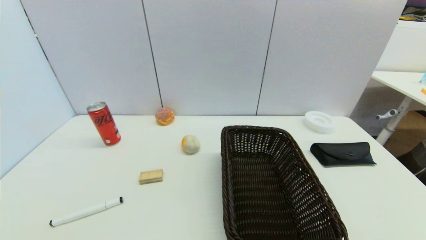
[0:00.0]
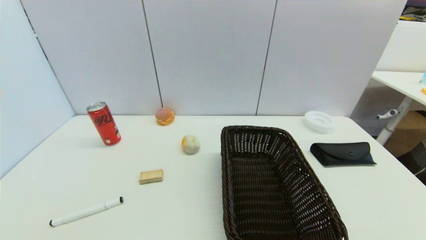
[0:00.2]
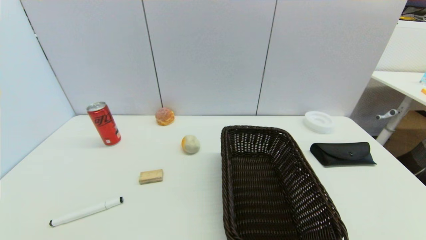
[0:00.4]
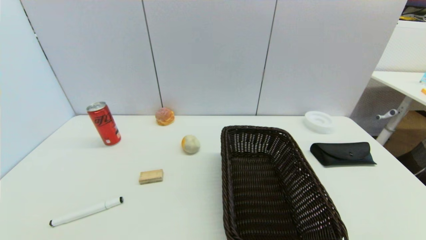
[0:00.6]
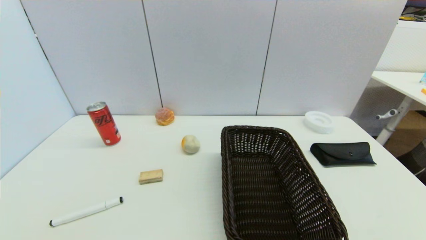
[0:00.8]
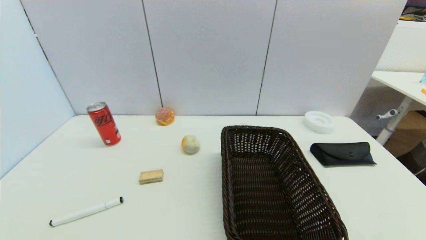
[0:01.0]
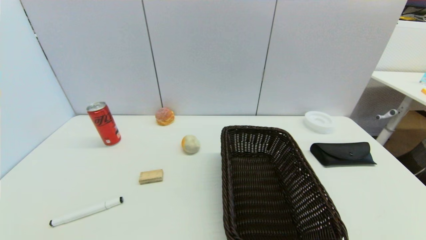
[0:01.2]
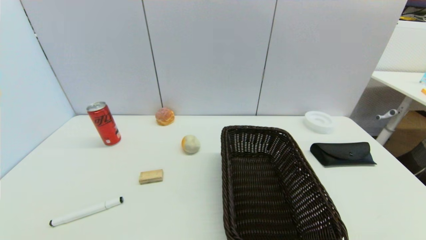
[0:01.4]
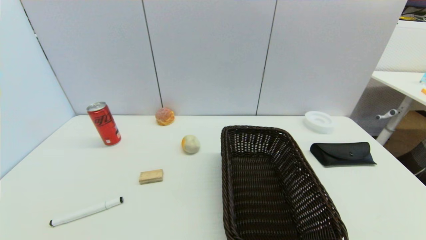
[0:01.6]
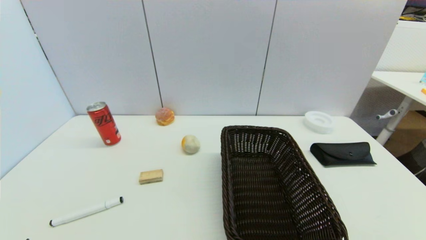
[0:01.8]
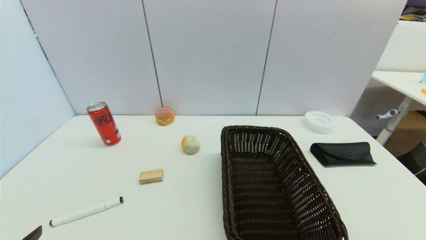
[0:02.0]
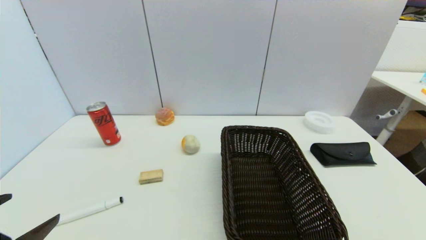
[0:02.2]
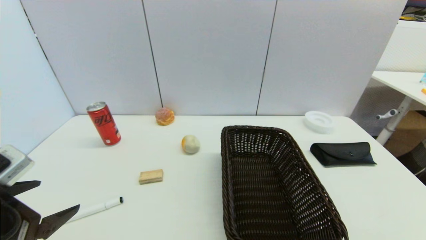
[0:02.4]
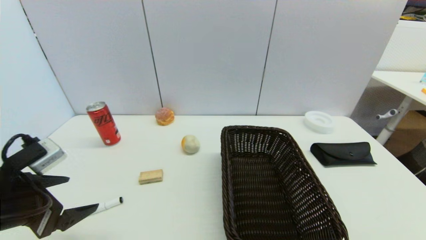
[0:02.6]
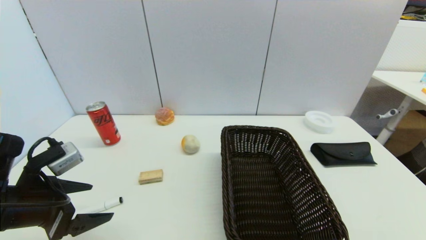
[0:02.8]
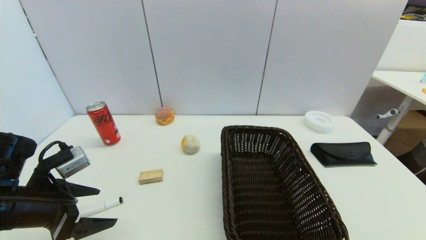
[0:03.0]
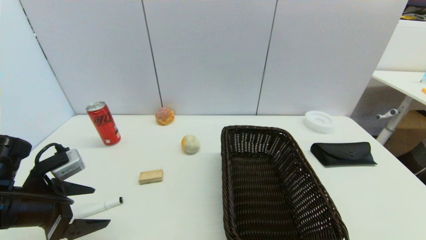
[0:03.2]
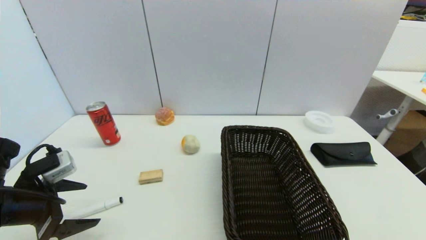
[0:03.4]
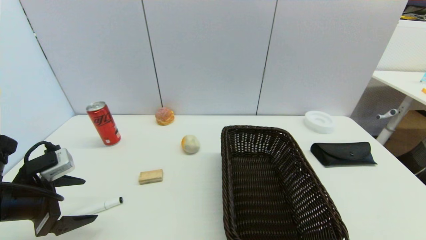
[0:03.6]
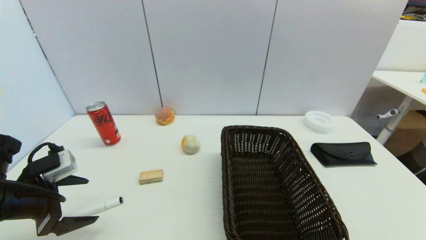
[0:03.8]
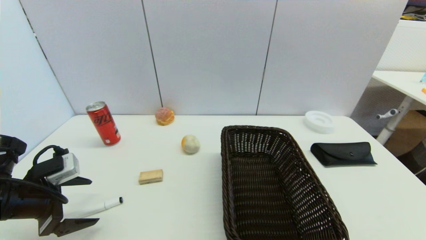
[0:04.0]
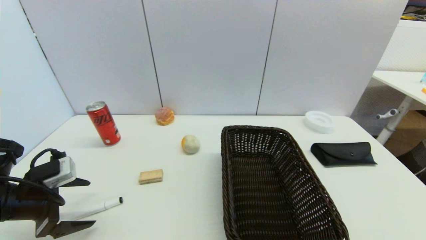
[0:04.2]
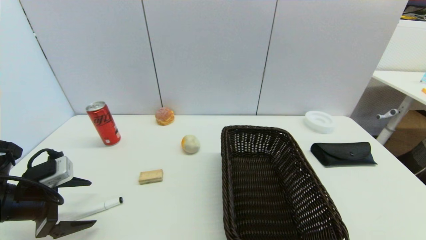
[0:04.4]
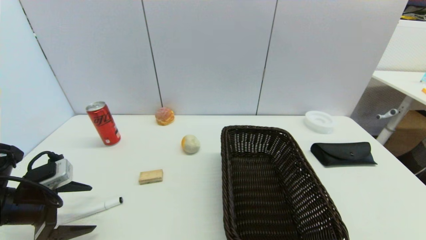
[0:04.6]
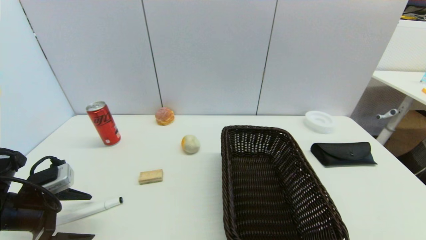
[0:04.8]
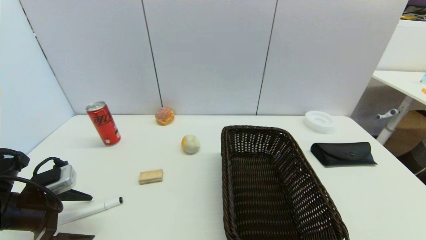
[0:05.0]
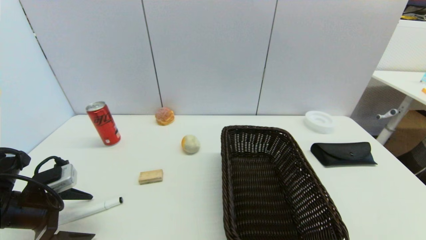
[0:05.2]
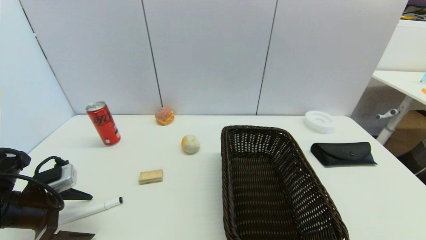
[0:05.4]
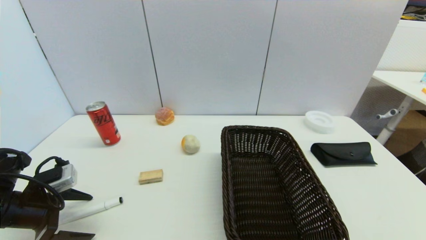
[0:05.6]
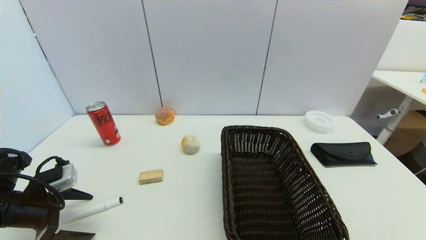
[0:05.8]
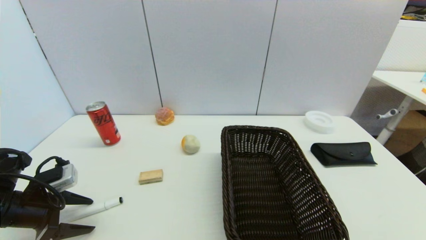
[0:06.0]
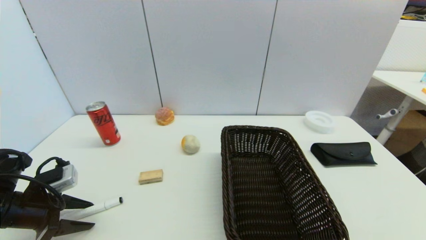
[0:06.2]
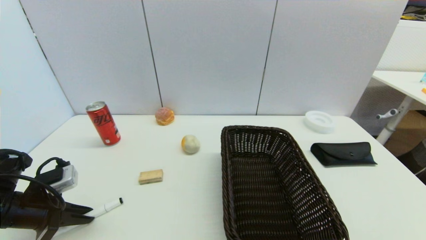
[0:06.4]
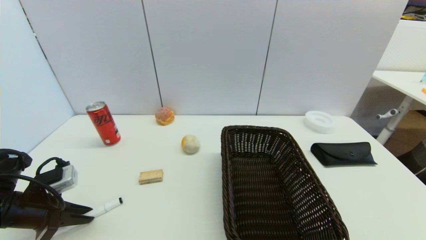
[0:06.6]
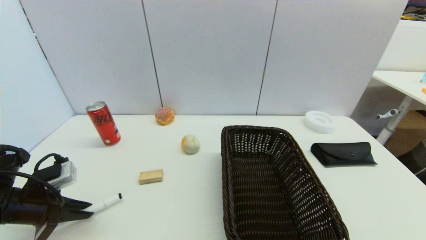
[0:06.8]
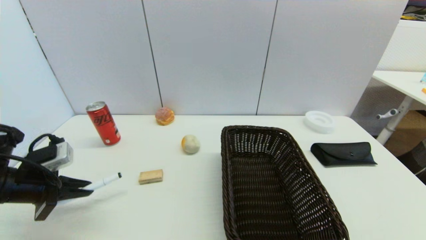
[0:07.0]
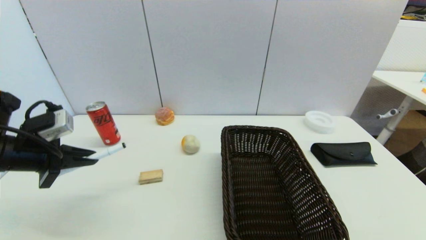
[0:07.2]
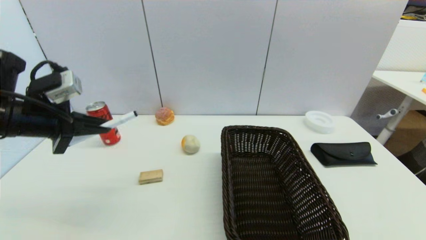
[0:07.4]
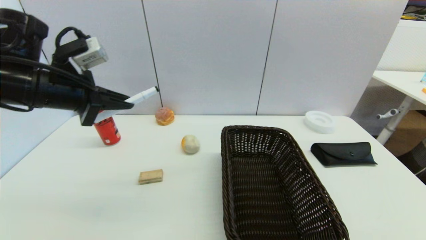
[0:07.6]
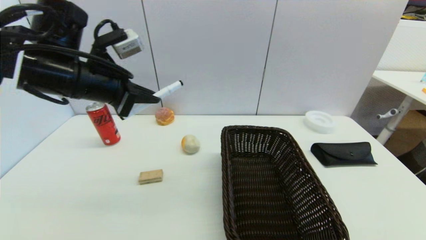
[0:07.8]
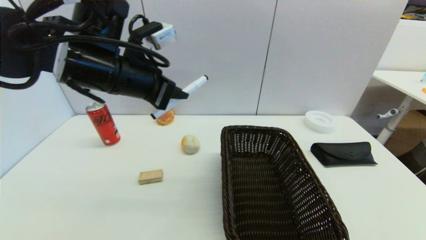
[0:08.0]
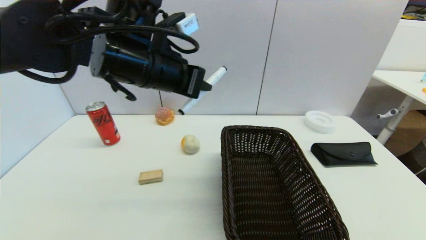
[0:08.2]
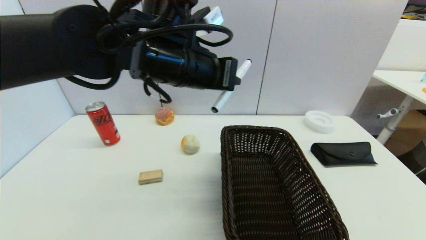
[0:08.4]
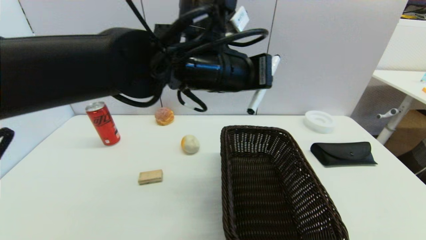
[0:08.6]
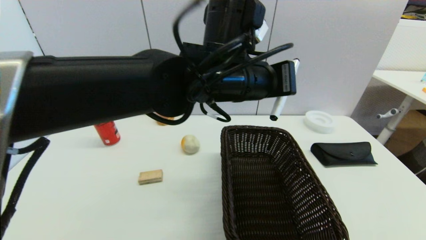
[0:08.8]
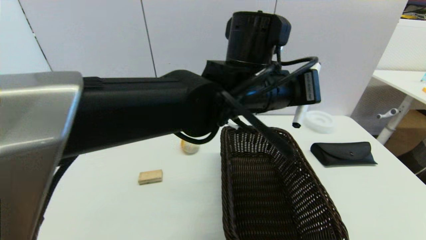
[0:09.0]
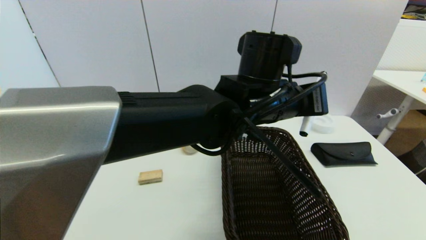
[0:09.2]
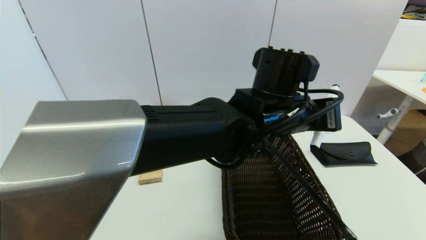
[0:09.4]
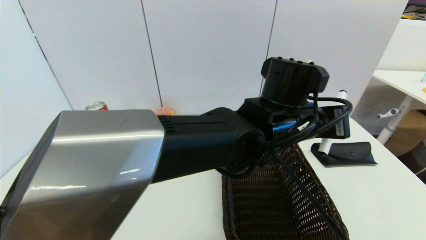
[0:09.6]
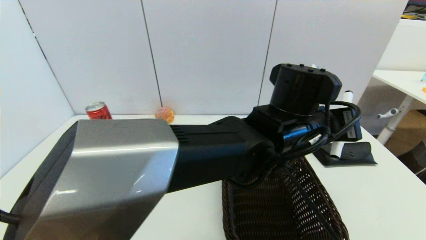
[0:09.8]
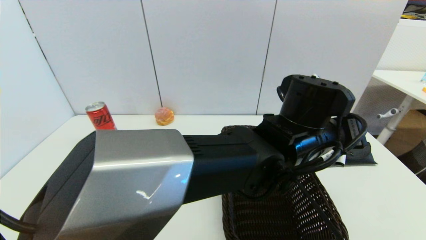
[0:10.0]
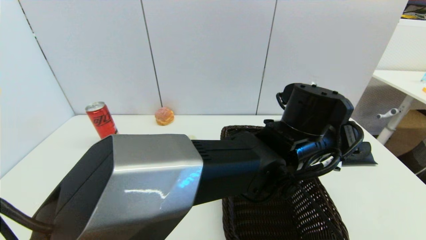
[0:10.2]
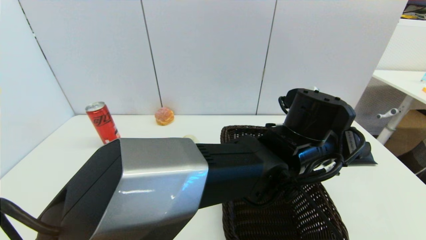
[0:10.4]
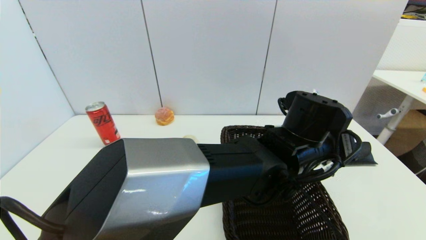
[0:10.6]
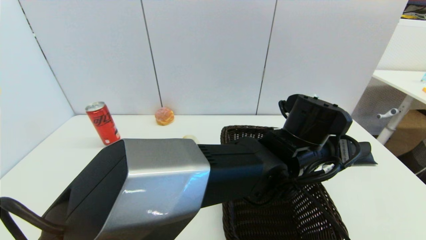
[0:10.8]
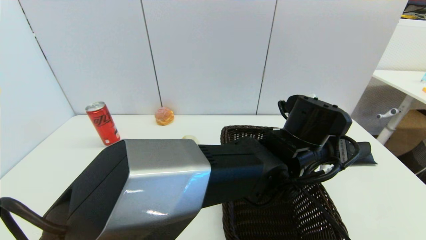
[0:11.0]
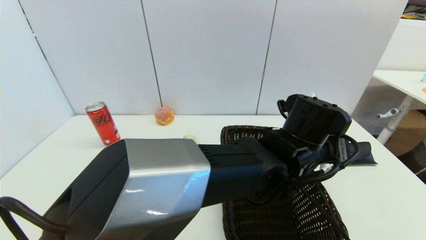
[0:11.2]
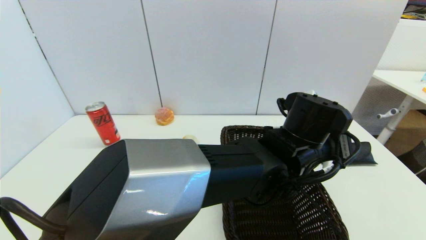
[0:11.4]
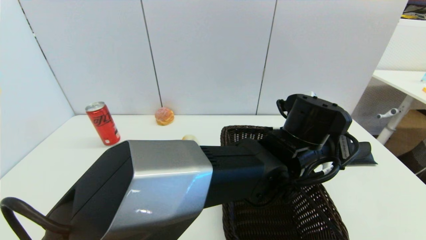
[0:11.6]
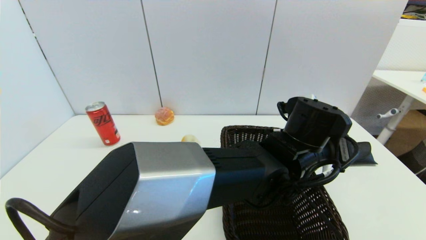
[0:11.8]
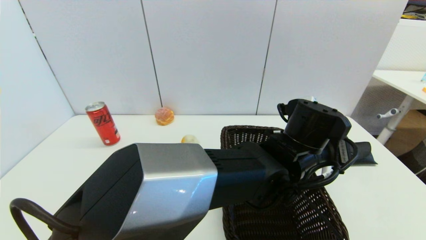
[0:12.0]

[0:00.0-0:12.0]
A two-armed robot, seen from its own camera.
Task of the whole recording: put the black marker in the designated position.
Step, 0:02.0 to 0:06.6: Grasp the Marker pen with left gripper.
0:01.6 to 0:03.0: The left gripper heads forward, covering some 20 cm.
0:03.0 to 0:04.4: The left gripper heads to the left, covering roughly 5 cm.
0:04.4 to 0:06.0: There are only small adjustments of the grippers.
0:06.0 to 0:07.6: The left gripper shifts approximately 20 cm upward, to the right and forward, and closes up.
0:07.6 to 0:09.0: The left gripper goes approximately 30 cm to the right.
0:09.0 to 0:10.4: The left gripper travels downward and to the right by about 10 cm.
0:10.4 to 0:12.0: The grippers make only small movements.

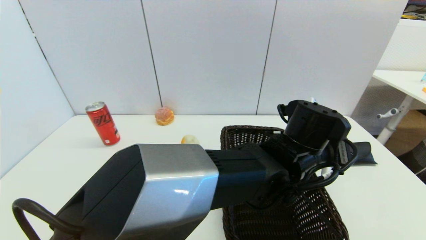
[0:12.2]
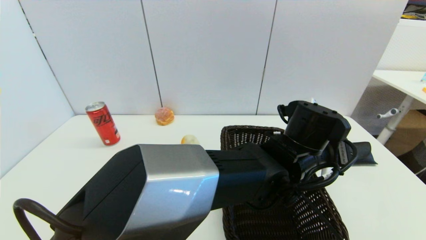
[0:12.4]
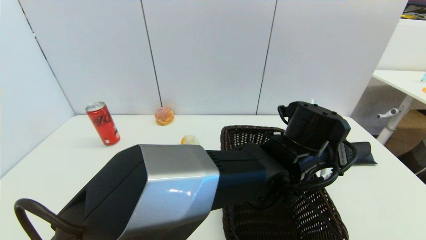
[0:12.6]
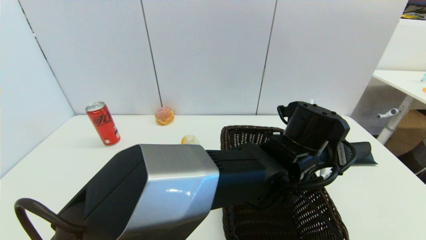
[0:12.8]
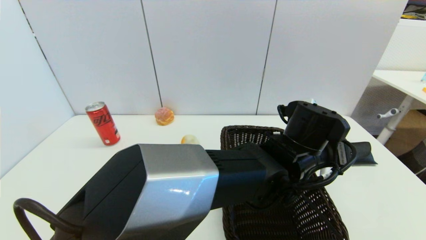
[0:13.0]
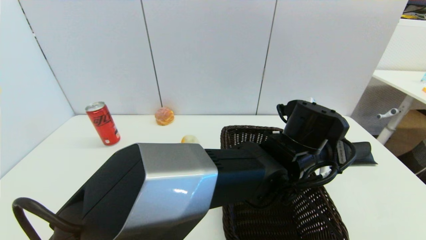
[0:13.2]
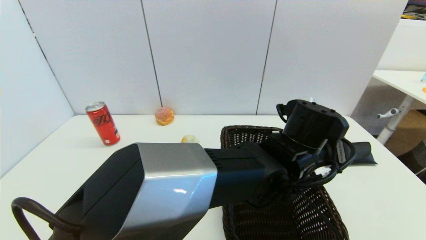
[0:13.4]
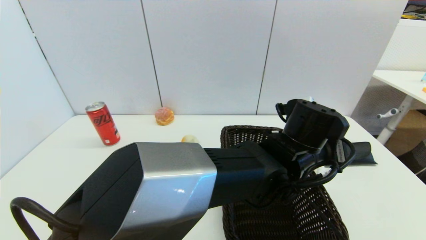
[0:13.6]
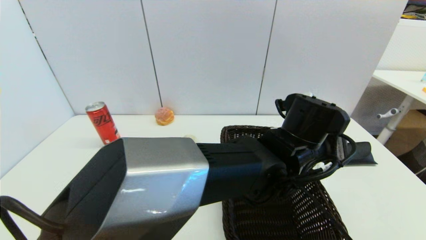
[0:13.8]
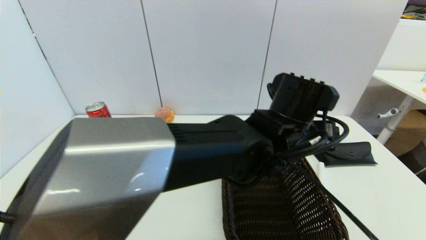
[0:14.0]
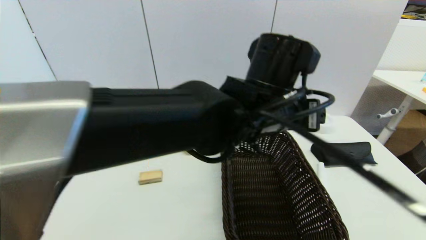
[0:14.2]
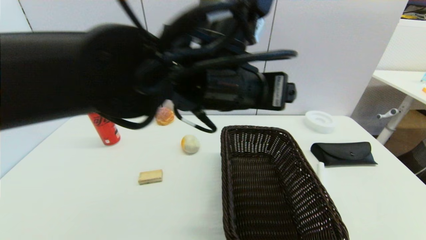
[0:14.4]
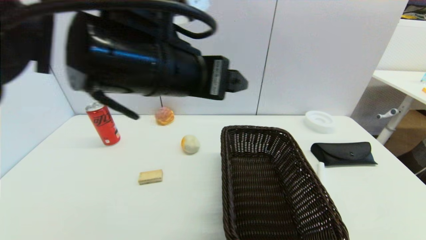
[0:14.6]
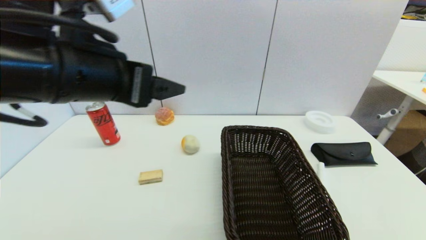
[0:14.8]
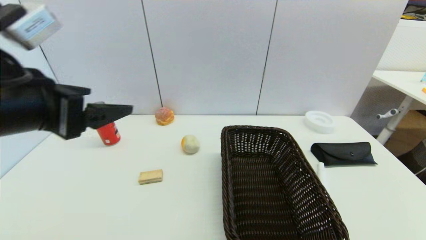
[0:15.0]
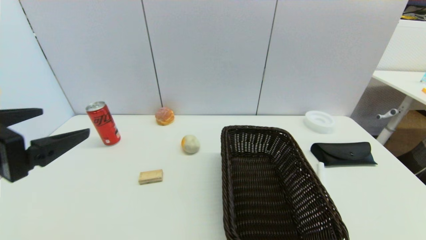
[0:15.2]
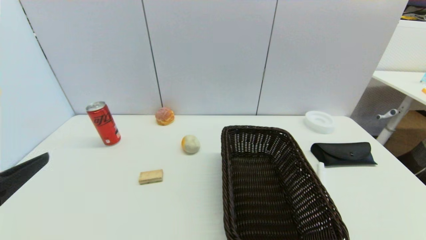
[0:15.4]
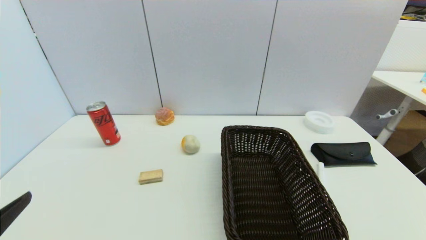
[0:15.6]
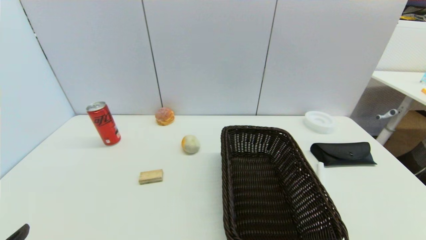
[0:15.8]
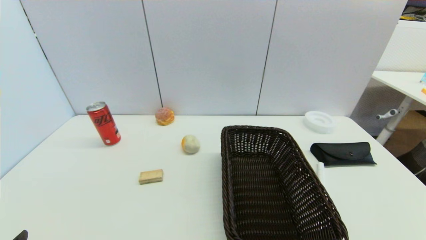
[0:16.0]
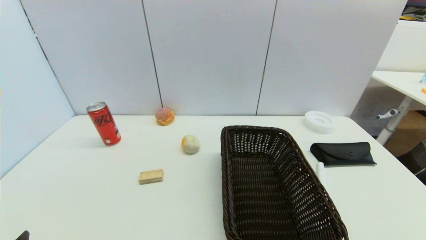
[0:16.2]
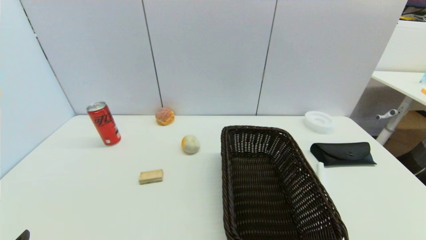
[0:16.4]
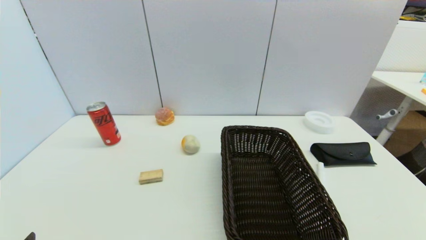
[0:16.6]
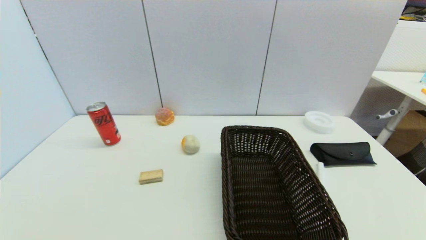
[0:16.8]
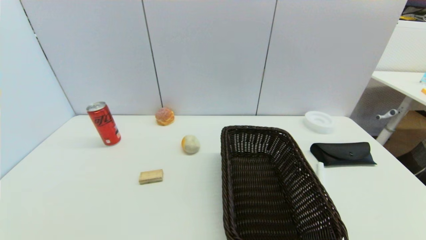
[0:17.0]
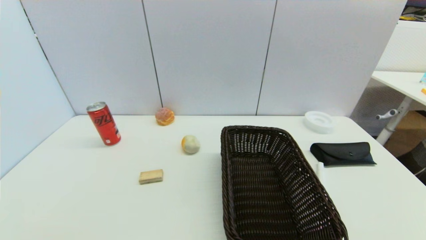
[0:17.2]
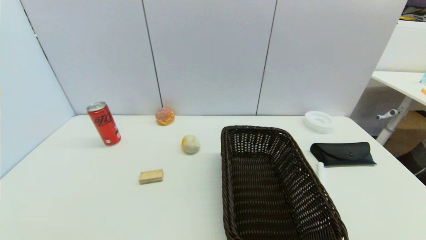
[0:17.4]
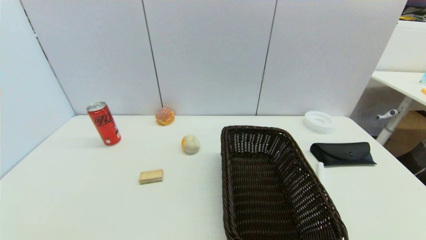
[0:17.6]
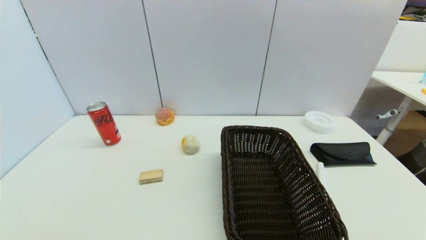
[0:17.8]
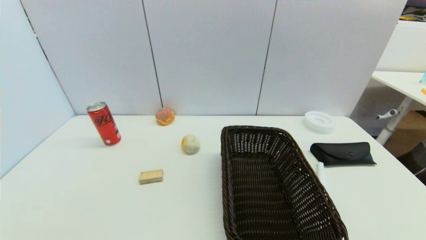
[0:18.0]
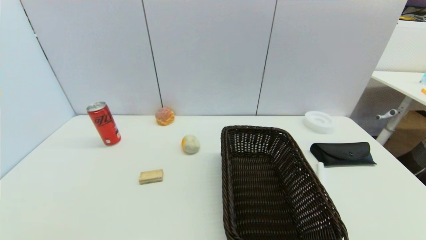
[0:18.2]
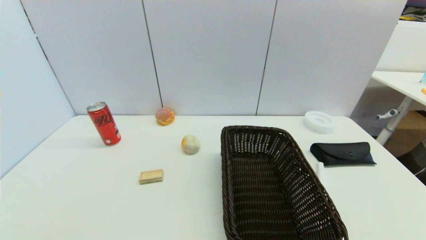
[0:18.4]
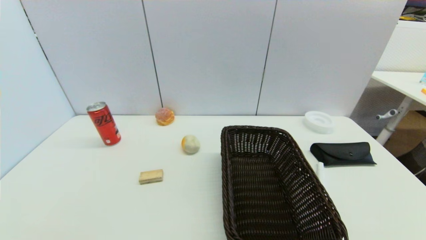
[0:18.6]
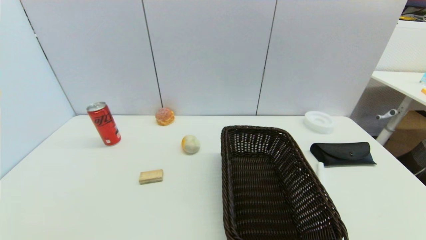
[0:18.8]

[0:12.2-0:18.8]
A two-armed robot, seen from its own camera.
Task of the whole recording: put the black marker in the designated position.
0:12.2 to 0:13.8: The left gripper opens up.
0:13.8 to 0:15.4: The left gripper moves to the left and backward, about 50 cm.
0:15.4 to 0:17.2: The left gripper moves downward and backward, some 20 cm.
0:17.2 to 0:18.8: Both grippers stay put.
